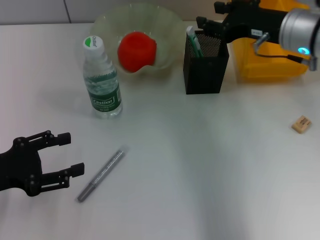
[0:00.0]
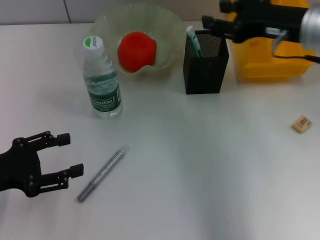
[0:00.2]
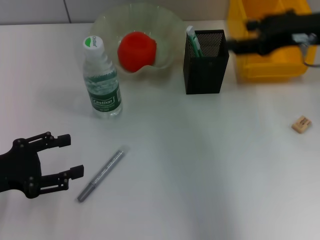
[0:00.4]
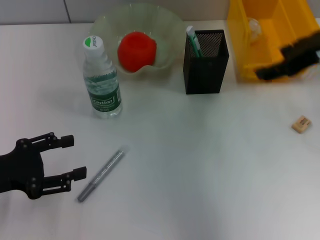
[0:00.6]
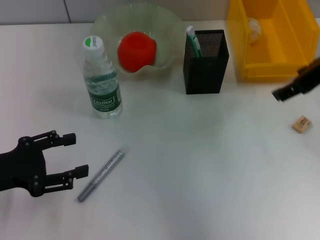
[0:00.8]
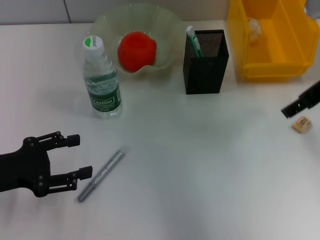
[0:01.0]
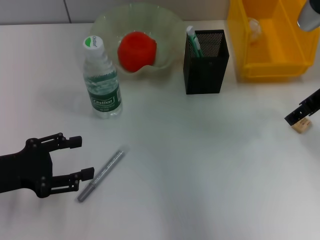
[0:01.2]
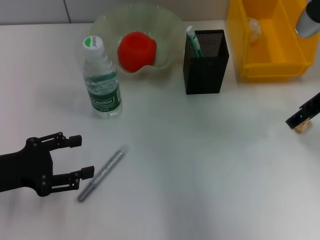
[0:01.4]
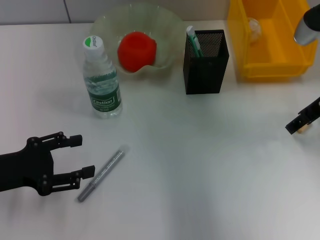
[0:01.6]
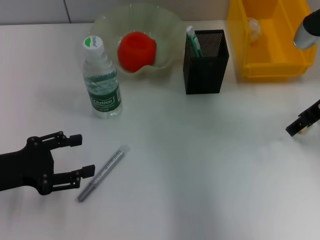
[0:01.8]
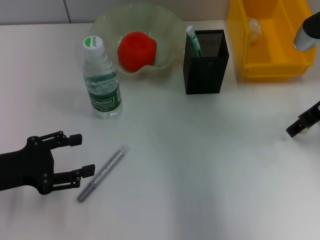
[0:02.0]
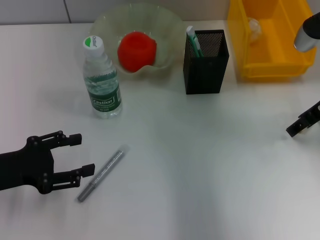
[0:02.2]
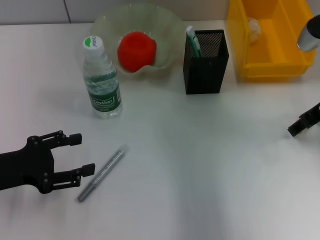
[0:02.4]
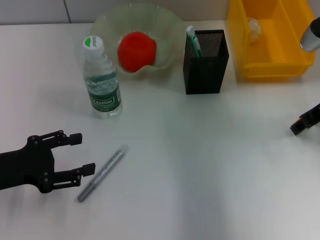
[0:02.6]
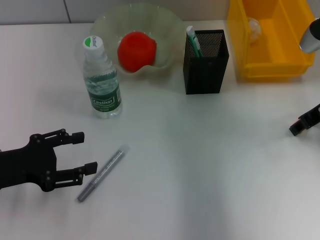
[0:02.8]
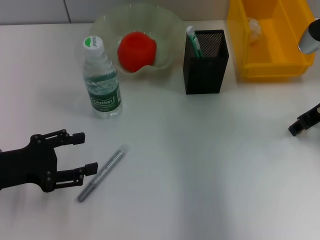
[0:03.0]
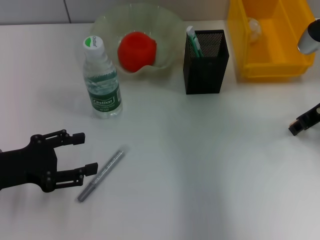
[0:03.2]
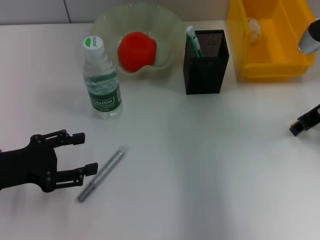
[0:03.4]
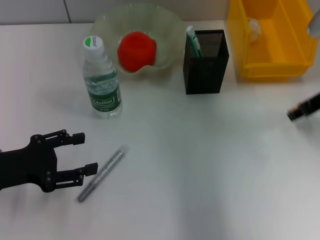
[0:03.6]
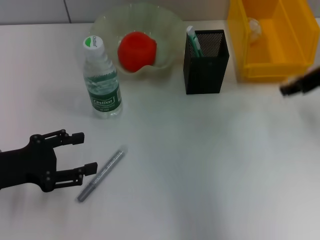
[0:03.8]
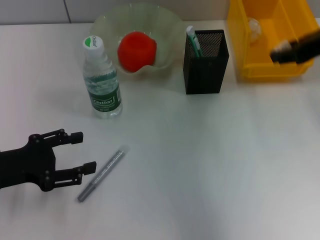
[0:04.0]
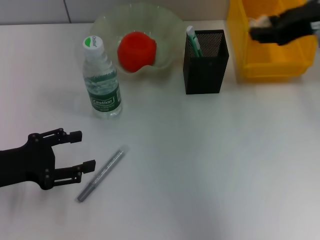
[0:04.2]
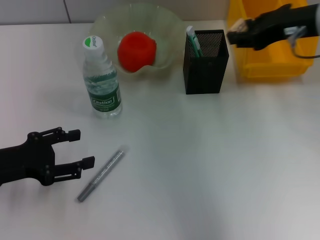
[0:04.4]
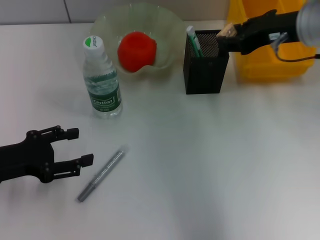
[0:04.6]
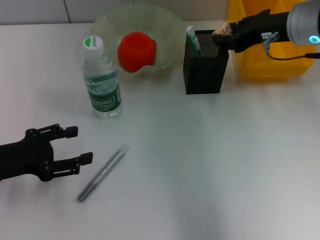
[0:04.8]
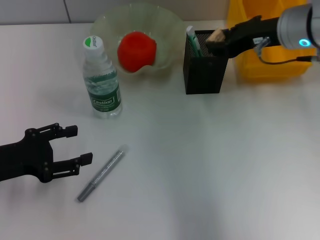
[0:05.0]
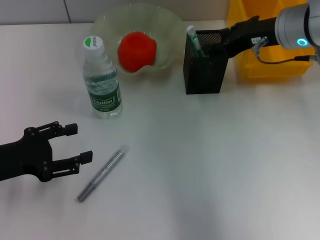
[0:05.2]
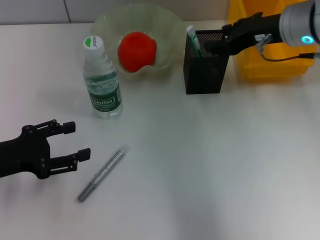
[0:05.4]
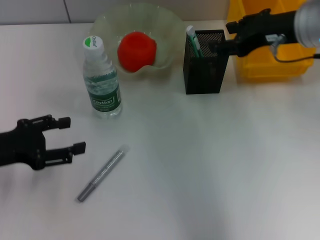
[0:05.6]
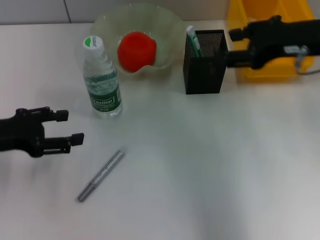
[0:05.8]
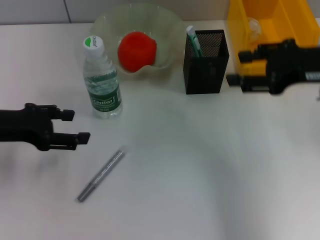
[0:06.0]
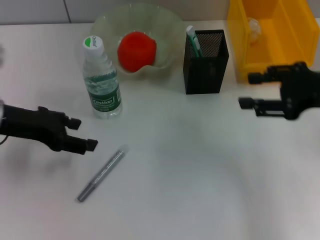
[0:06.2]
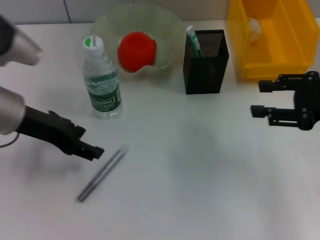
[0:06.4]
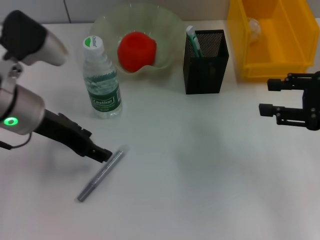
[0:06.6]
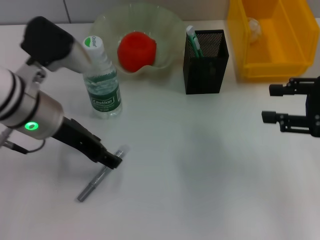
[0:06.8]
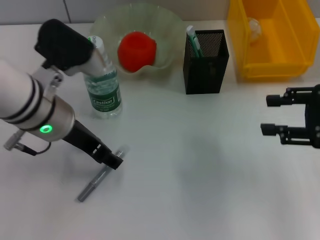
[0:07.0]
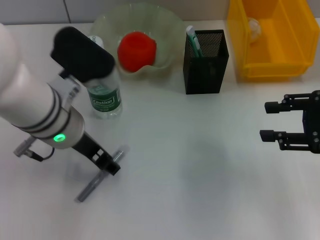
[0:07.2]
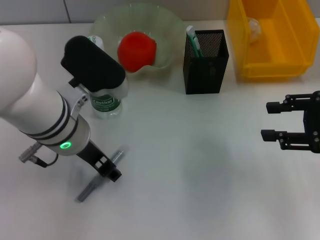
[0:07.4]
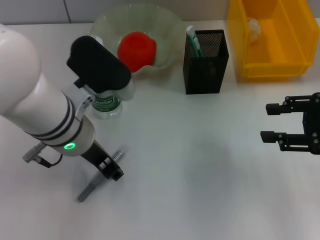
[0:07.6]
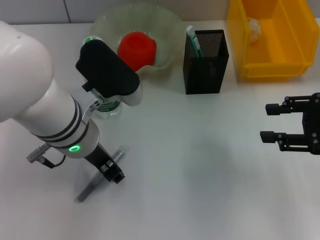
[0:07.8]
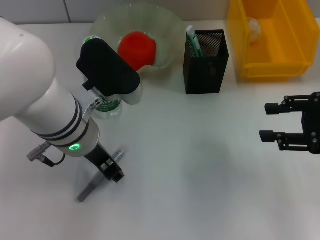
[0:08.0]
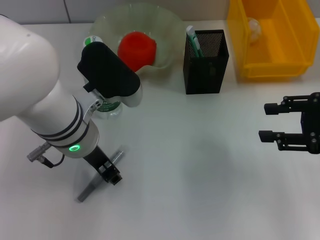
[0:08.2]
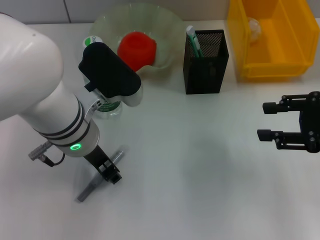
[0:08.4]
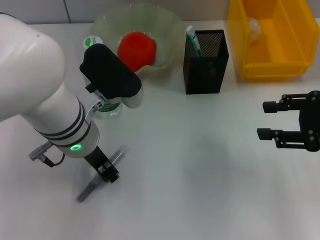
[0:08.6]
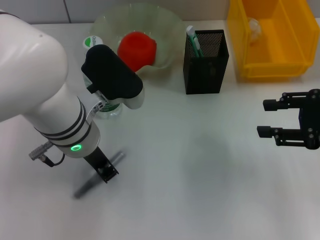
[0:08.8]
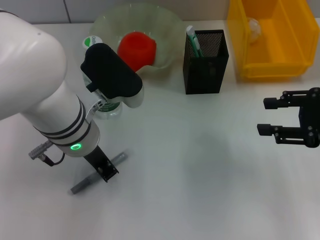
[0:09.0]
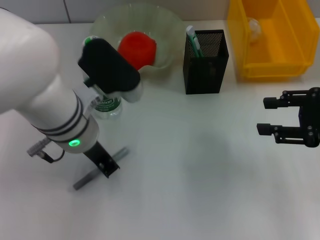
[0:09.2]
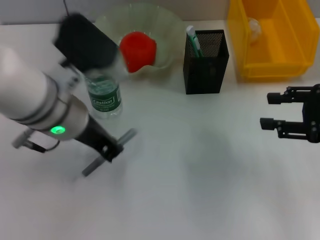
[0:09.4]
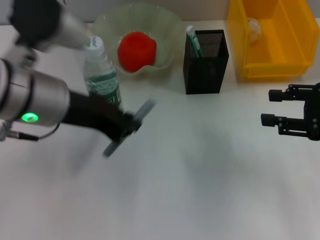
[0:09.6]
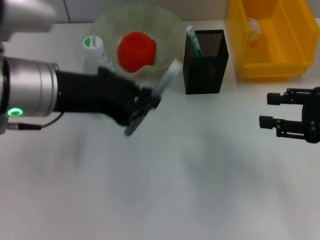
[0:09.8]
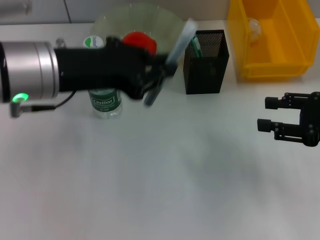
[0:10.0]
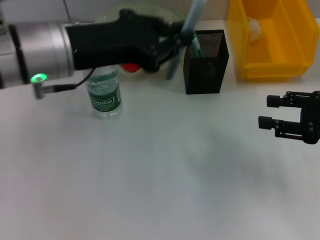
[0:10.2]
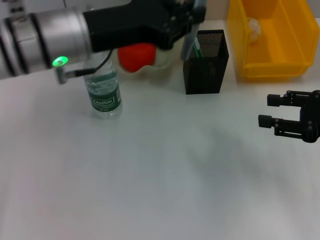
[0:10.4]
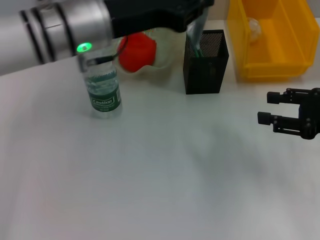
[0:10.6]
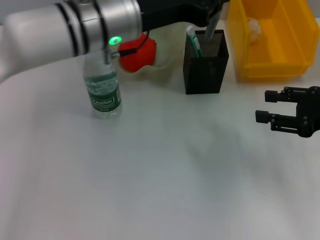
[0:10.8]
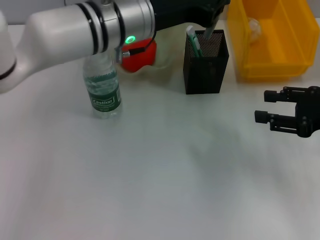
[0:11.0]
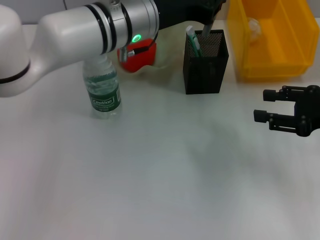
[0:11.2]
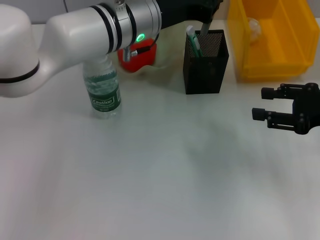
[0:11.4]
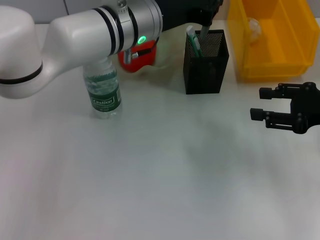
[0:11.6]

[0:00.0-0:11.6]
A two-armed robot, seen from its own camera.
Step, 0.0 to 3.0 s: Grab the eraser with the right hand.
Step, 3.4 to 5.2 s: Put the eraser into the pen holder with the right hand.
Step, 5.4 to 9.0 s: Grab the gray glue with the left hand.
0.0 to 1.4 s: The right gripper opens.
1.4 to 2.8 s: The grippers stay close to where they were, moving slightly.
2.8 to 4.4 s: The right gripper shifts roughly 10 cm upward and to the left.
4.4 to 5.8 s: The left gripper changes place by approximately 5 cm.
5.8 to 7.2 s: The right gripper moves to the right, backward and downward, approximately 15 cm, while the left gripper heads to the right, covering about 15 cm.
7.2 to 8.8 s: The left gripper closes its fingers.
8.8 to 10.2 s: The left gripper goes about 10 cm upward.
10.2 to 11.6 s: The left gripper is displaced forward and to the right by about 15 cm.

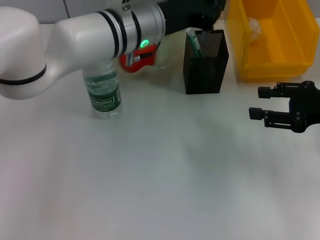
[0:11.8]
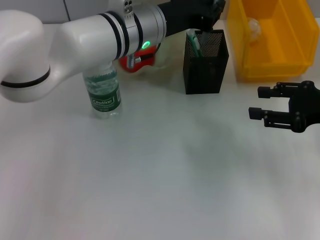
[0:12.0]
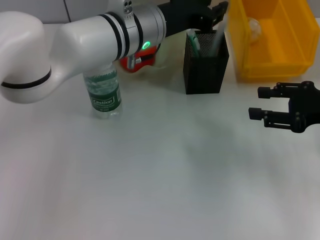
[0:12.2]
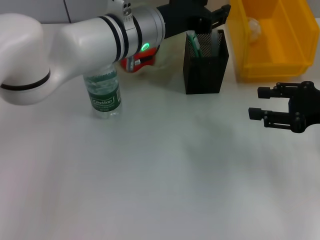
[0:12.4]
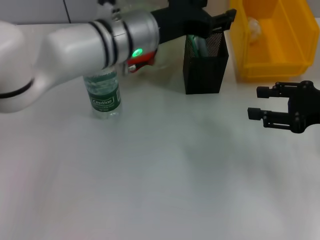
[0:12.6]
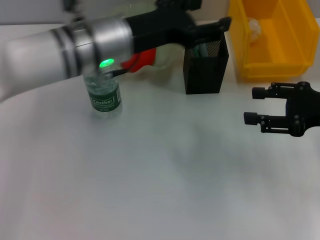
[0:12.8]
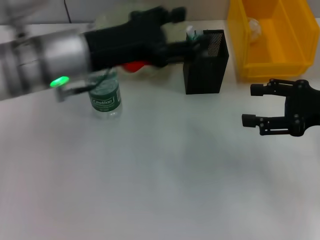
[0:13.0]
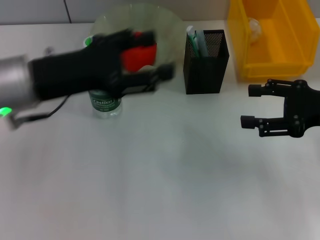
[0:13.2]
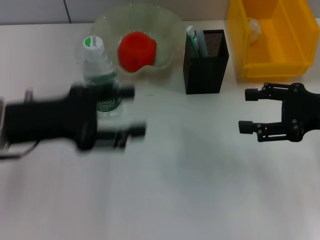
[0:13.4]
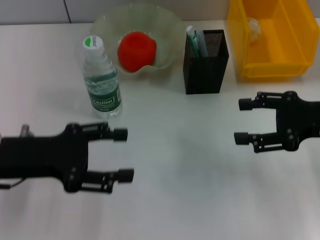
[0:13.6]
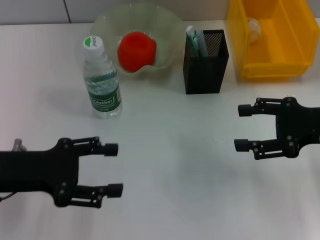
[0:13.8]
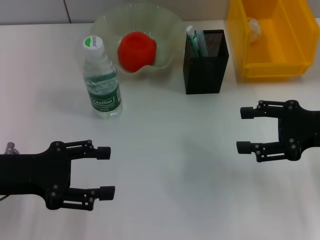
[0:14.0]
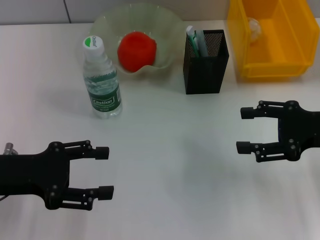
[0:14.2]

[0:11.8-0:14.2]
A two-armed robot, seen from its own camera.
11.8 to 13.0 s: The left gripper shifts some 10 cm to the left and backward, and opens its fingers.
13.0 to 14.2 s: The left gripper goes some 15 cm to the left, backward and downward.

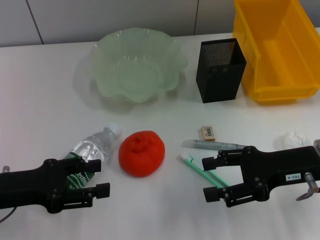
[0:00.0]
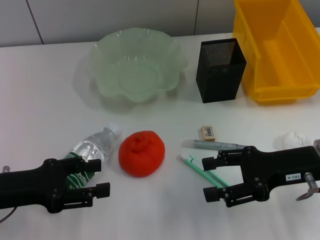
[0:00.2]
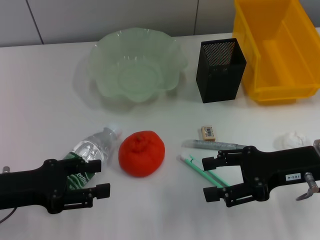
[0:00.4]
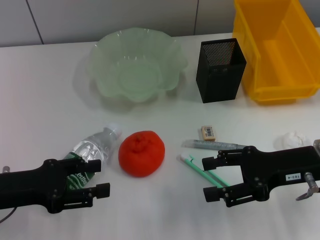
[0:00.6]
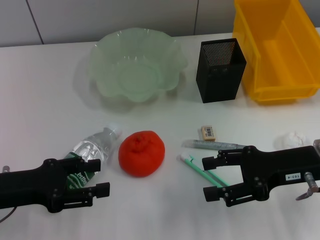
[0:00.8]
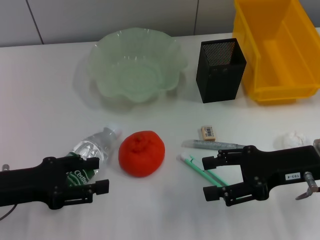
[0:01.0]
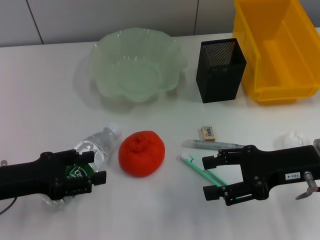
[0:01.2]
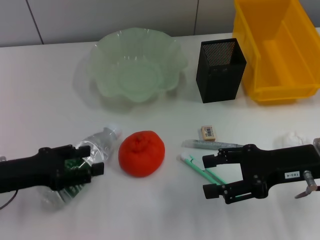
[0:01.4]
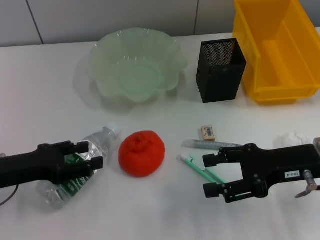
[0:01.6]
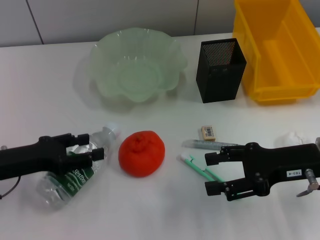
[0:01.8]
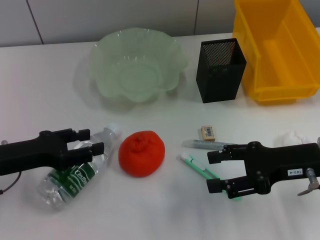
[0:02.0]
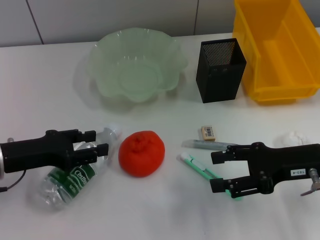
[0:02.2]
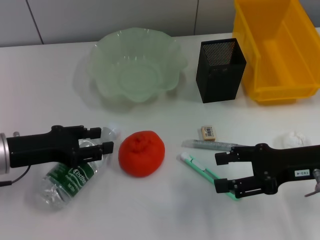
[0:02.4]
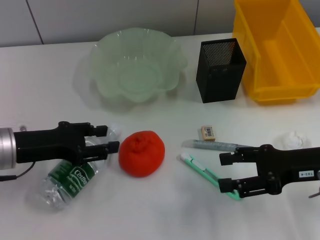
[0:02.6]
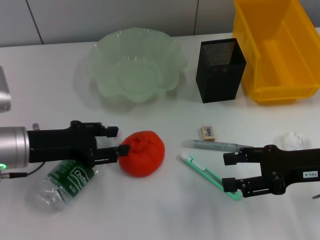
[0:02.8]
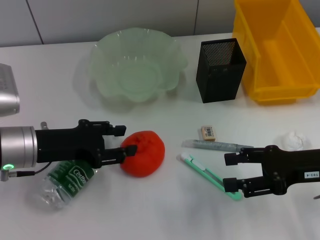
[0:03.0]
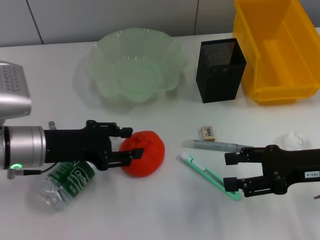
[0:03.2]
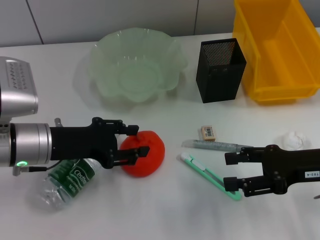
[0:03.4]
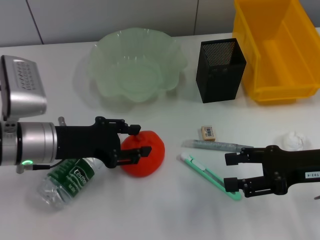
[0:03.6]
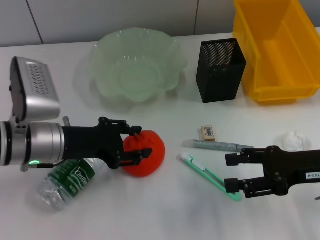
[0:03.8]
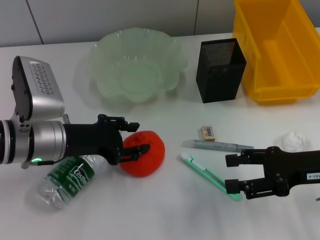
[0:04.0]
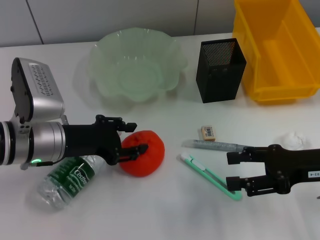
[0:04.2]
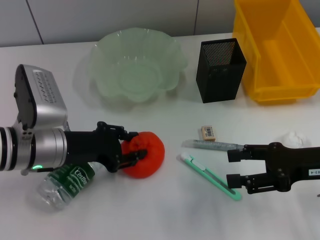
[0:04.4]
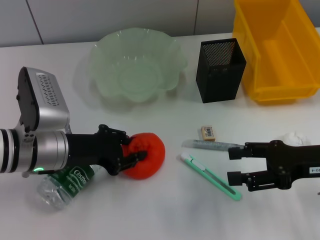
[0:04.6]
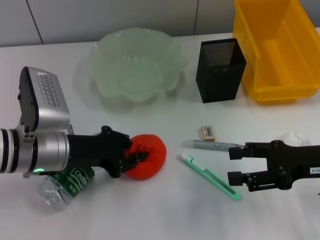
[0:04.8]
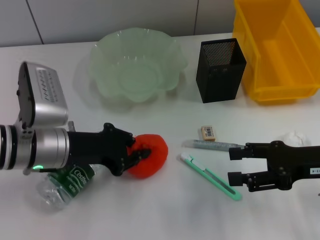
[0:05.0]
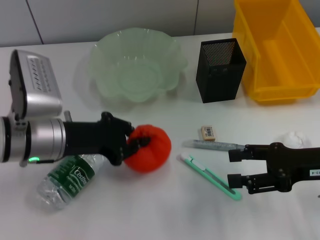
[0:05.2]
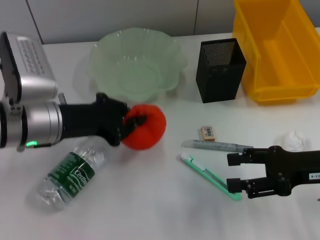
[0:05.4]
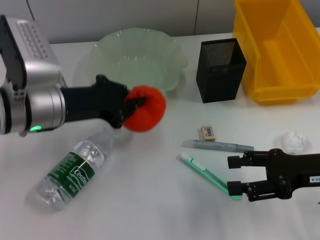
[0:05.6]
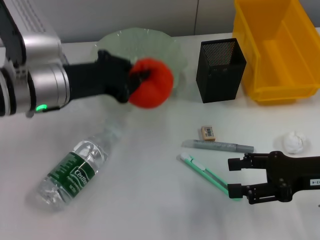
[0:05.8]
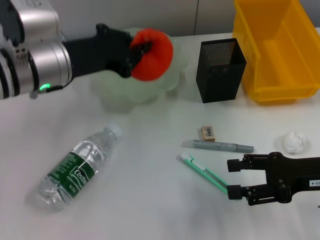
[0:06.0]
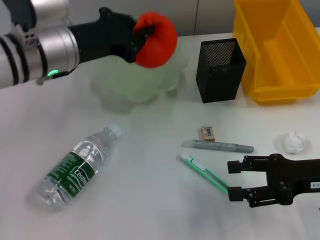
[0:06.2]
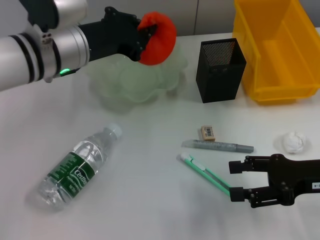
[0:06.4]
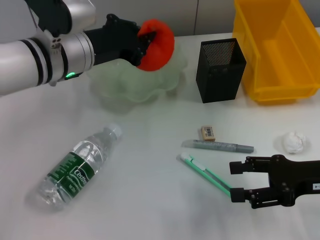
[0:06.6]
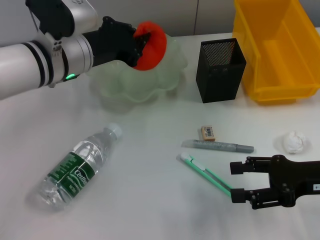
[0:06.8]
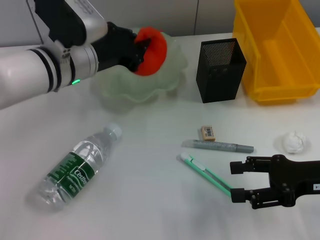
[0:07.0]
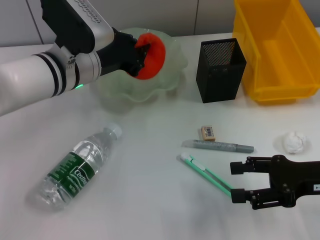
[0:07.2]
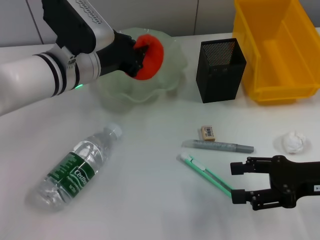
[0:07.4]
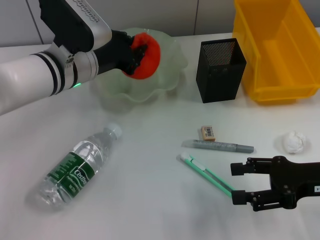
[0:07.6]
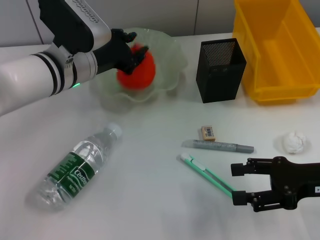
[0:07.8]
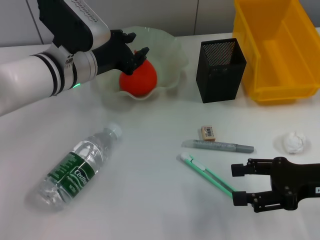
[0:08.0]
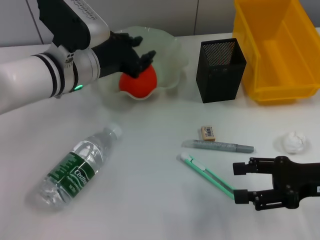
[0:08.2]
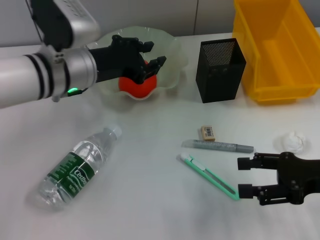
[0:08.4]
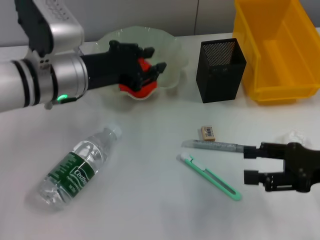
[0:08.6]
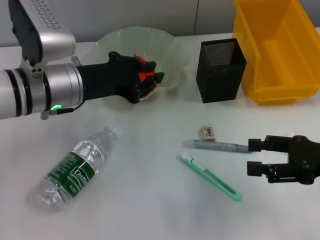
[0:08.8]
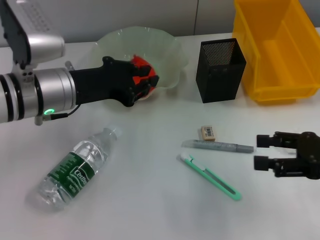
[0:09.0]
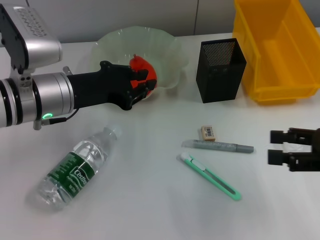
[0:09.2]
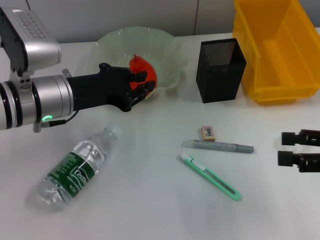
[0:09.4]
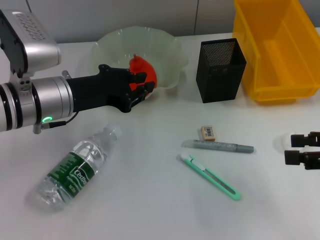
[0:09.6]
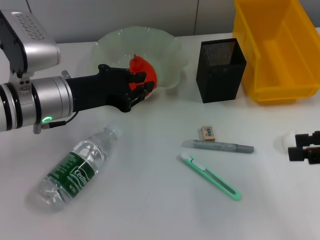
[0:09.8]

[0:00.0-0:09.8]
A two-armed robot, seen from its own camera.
Step, 0.0 to 4.8 s: Grab the orange with the left hand.
Step, 5.0 to 8.0 s: Place the orange into the fruit bowl with the left hand.
0.0 to 1.4 s: The grippers stay close to where they were, moving slightly.
1.4 to 2.8 s: The left gripper shifts about 5 cm forward.
2.8 to 4.2 s: The grippers move only a little.
4.2 to 5.6 s: The left gripper closes up.
5.6 to 7.0 s: The left gripper is displaced forward and to the right by some 10 cm.
7.0 to 8.4 s: The left gripper opens.
8.4 to 9.8 s: The left gripper changes place by roughly 5 cm. Meanwhile the right gripper is displaced upward and to the right by approximately 10 cm.
